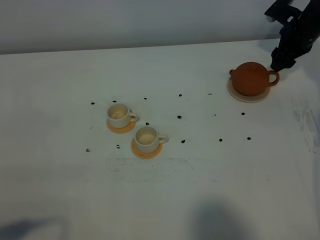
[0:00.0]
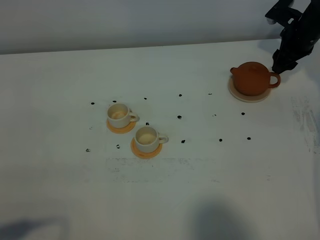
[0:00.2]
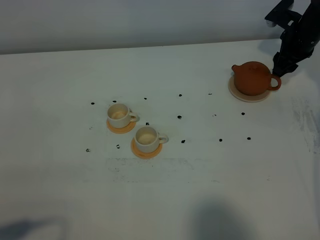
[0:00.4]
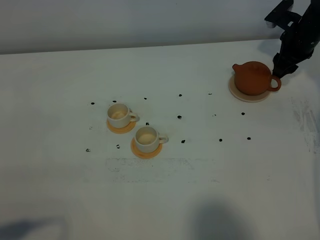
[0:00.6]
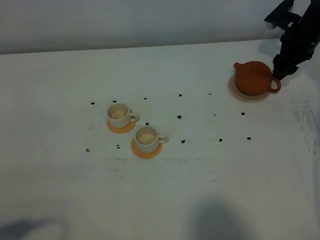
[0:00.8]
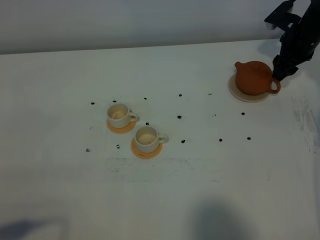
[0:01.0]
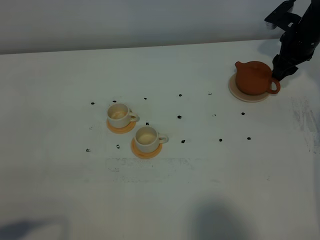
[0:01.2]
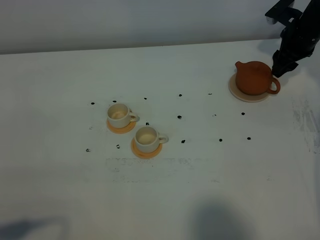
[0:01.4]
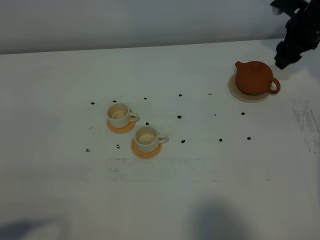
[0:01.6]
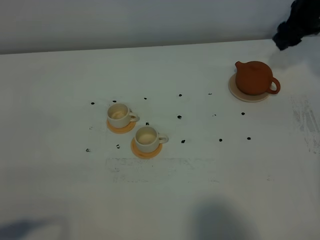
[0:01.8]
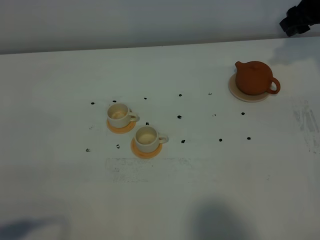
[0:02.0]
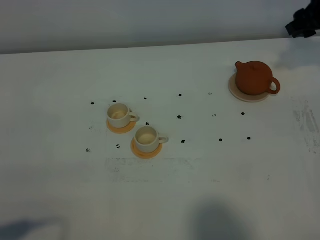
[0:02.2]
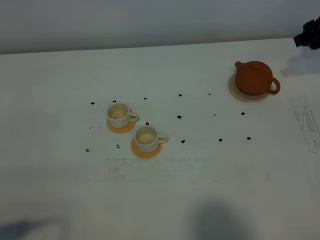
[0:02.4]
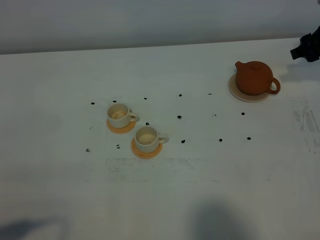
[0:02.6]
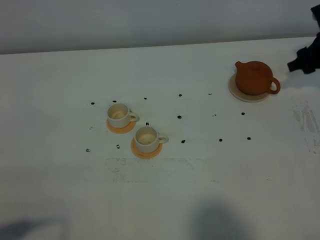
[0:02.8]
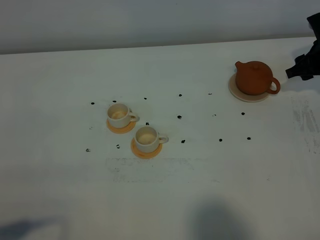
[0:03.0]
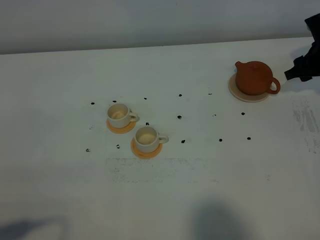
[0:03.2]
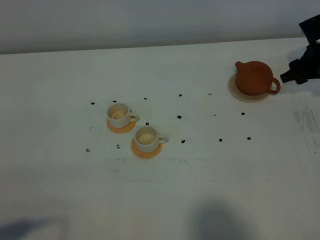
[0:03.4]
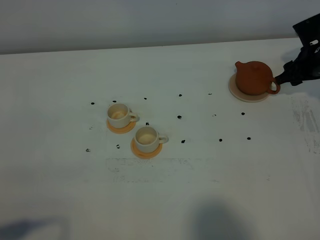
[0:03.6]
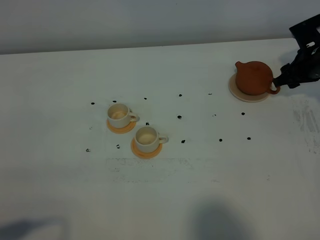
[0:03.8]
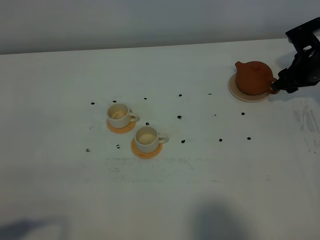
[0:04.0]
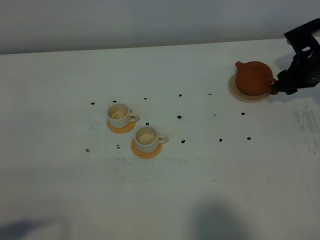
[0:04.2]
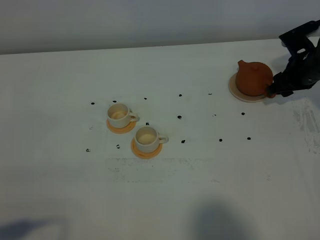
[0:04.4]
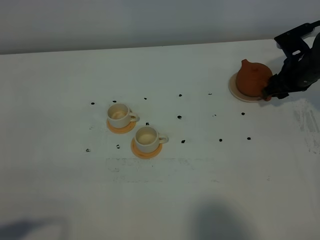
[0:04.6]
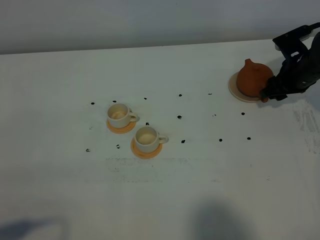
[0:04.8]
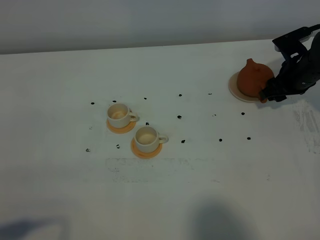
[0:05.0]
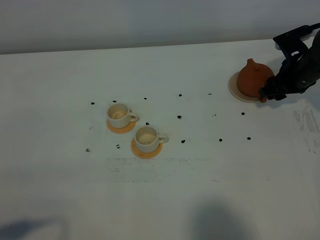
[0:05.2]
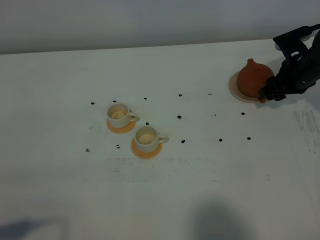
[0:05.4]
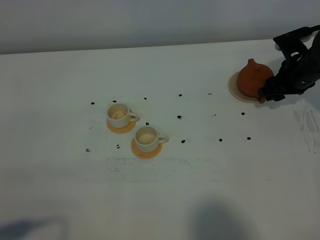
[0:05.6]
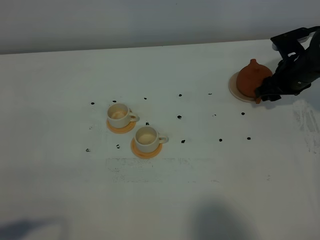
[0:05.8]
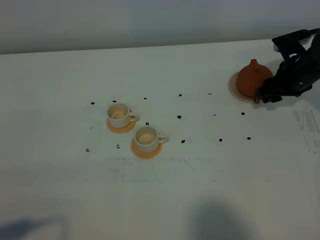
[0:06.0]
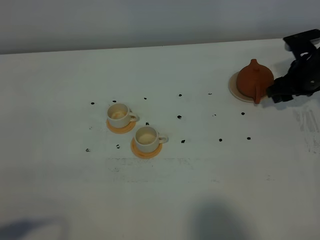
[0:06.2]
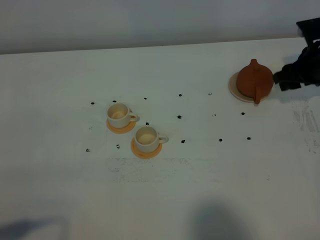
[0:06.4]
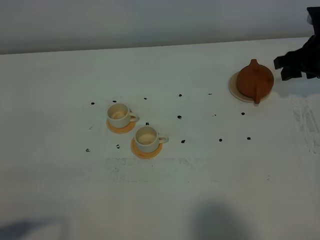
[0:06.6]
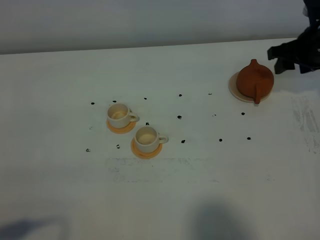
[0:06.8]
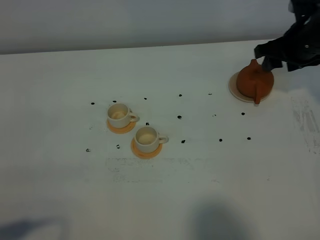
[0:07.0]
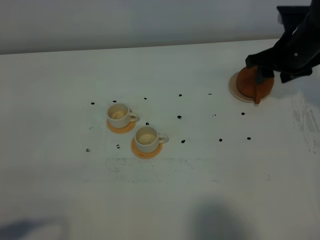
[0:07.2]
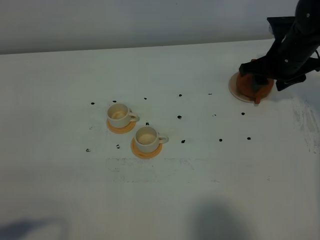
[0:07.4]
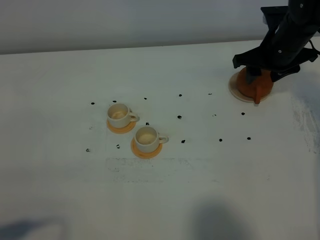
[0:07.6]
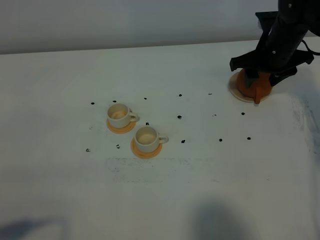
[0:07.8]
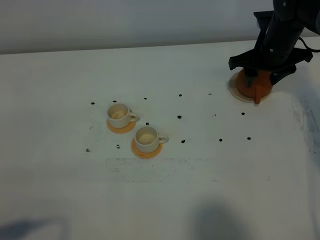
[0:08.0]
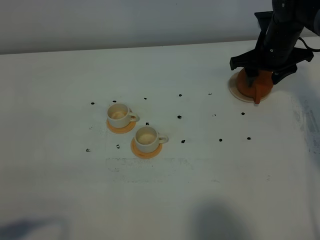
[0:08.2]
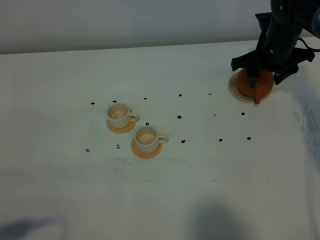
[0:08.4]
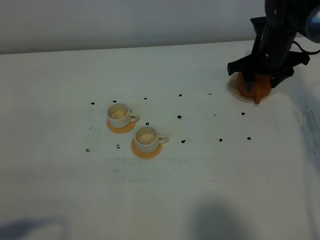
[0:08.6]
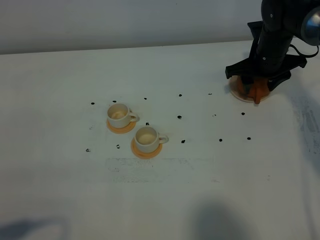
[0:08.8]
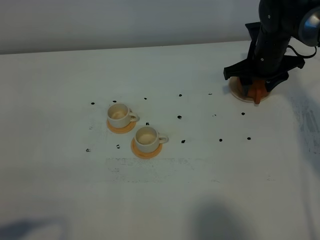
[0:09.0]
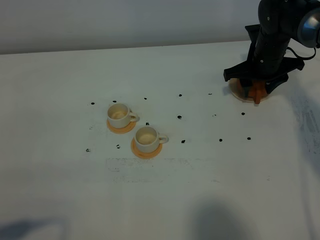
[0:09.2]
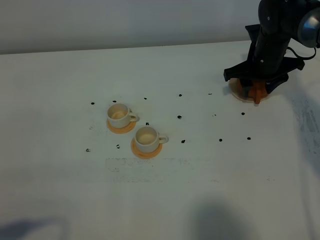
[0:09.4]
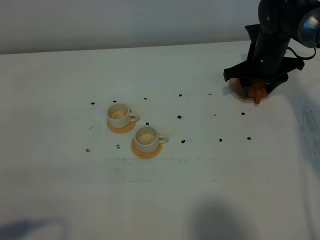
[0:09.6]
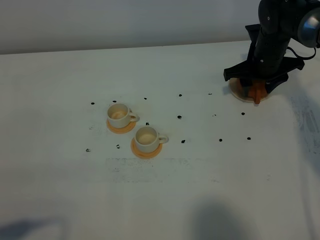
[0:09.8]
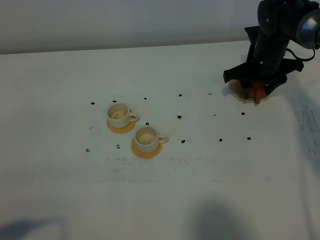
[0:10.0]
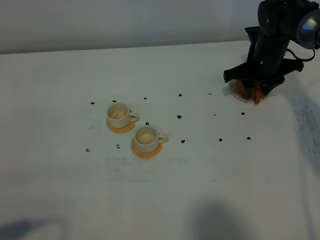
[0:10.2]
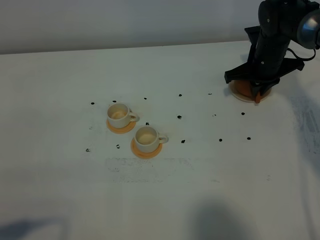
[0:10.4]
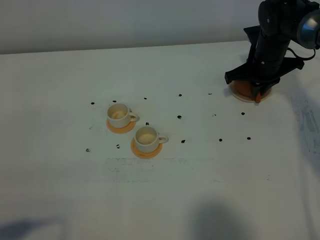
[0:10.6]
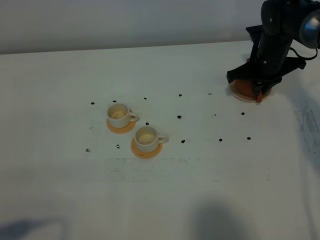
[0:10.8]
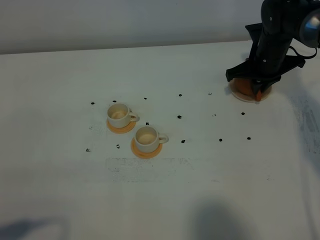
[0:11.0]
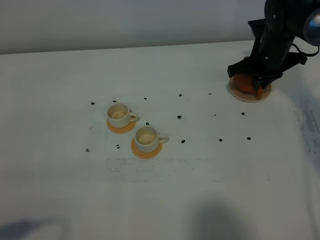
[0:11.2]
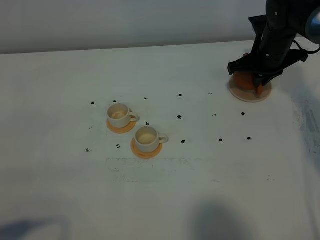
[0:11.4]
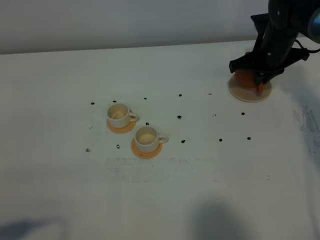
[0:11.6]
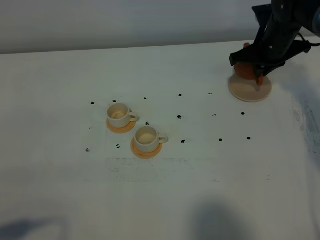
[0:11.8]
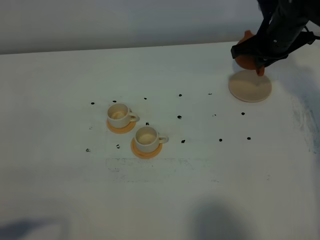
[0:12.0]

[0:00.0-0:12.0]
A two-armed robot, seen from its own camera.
Task of the whole recording: grasp the brown teapot and pour the tea into the two white teacups one by one, put the brown teapot back in its original place.
Step, 0:00.0 to 0:11.8: Pick up the teapot with the right gripper.
0:00.0 to 0:01.6: There are only small adjustments of the grippers.
0:01.6 to 0:03.0: The right gripper travels backward by roughly 5 cm.
0:03.0 to 0:04.4: The right gripper changes place by approximately 5 cm.
0:04.4 to 0:06.0: The grippers stay close to where they were, moving slightly.
0:06.0 to 0:07.6: The right gripper is displaced upward and to the left by roughly 10 cm.
0:07.6 to 0:09.0: The grippers stay close to where they were, moving slightly.
0:09.0 to 0:10.4: The right gripper closes its fingers.
0:10.4 to 0:12.0: The right gripper heads upward, covering approximately 5 cm.

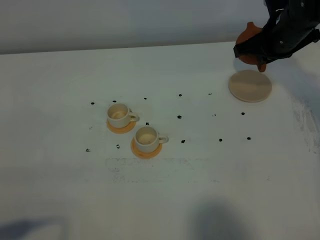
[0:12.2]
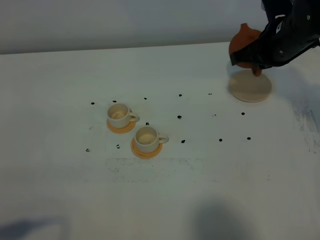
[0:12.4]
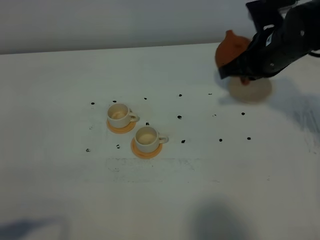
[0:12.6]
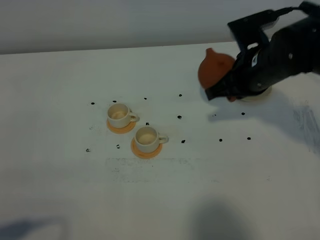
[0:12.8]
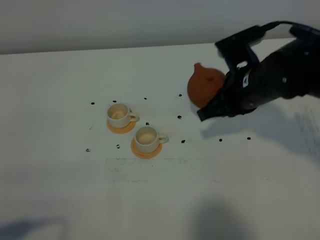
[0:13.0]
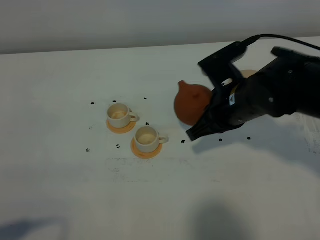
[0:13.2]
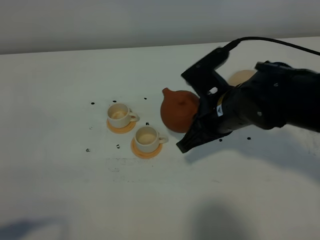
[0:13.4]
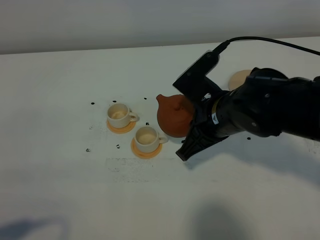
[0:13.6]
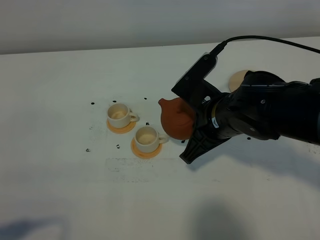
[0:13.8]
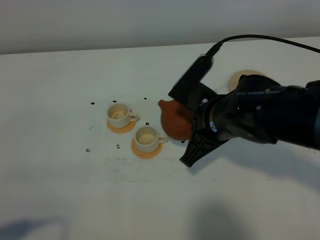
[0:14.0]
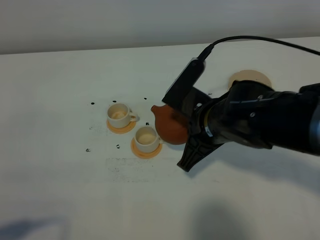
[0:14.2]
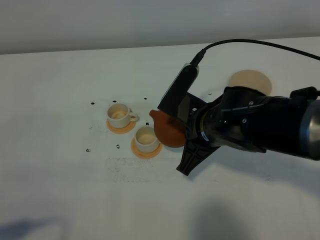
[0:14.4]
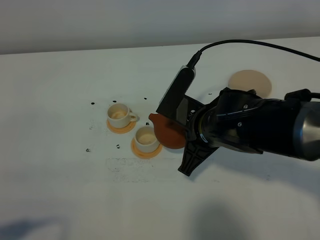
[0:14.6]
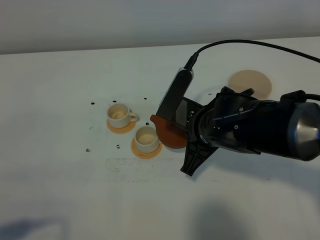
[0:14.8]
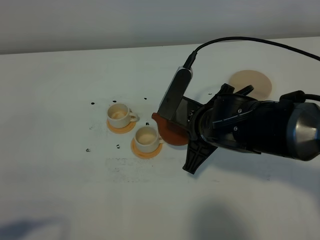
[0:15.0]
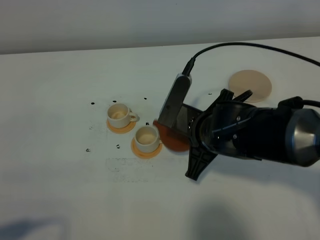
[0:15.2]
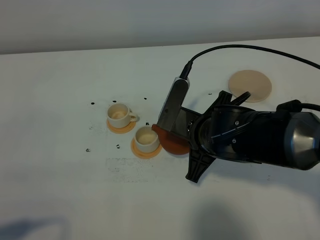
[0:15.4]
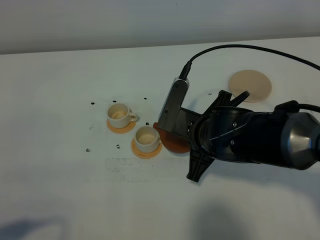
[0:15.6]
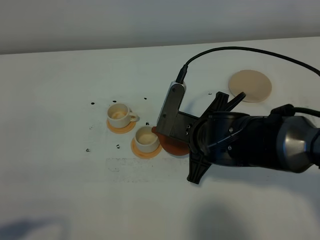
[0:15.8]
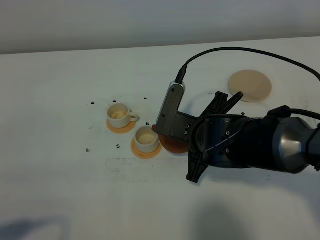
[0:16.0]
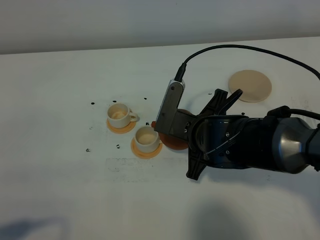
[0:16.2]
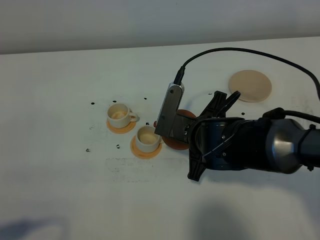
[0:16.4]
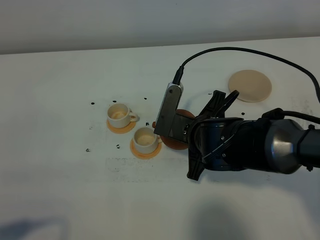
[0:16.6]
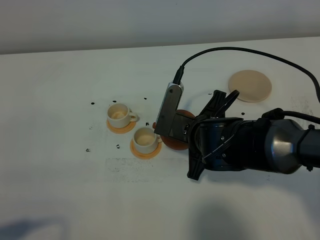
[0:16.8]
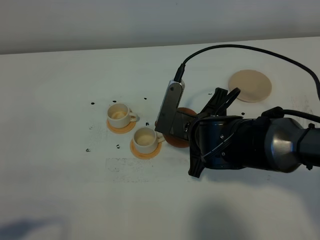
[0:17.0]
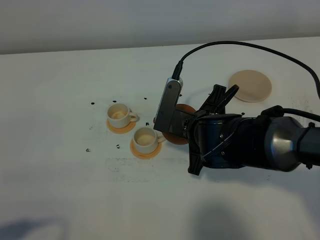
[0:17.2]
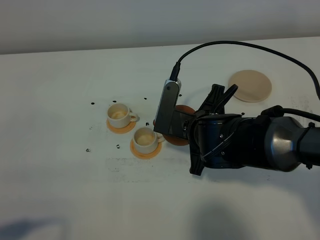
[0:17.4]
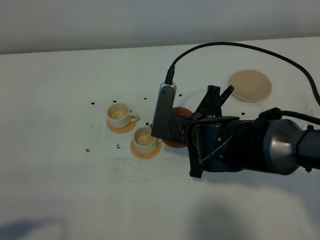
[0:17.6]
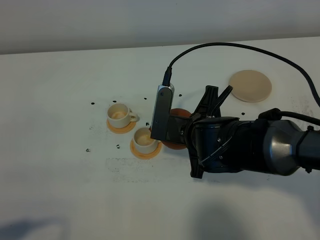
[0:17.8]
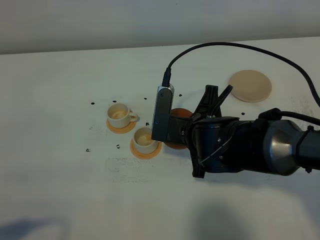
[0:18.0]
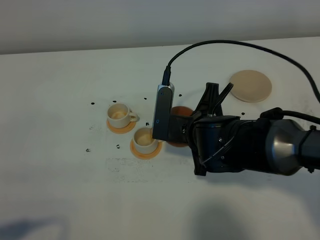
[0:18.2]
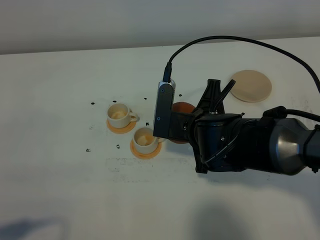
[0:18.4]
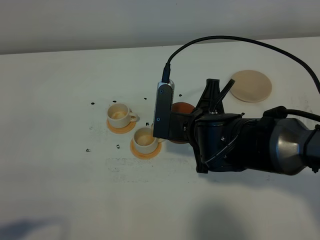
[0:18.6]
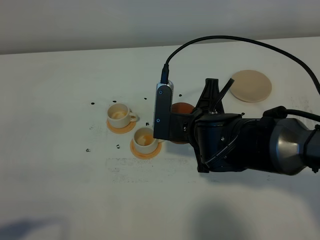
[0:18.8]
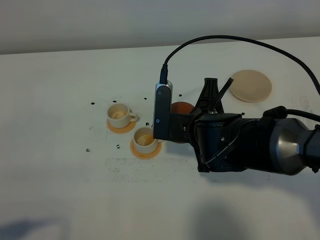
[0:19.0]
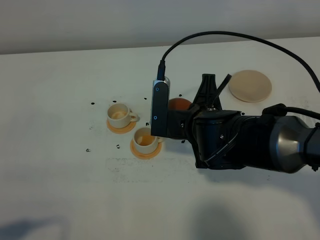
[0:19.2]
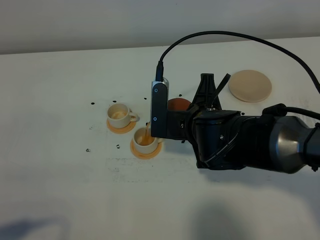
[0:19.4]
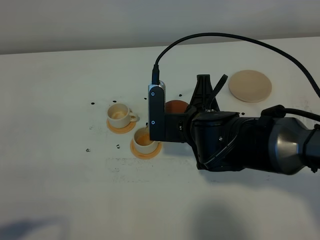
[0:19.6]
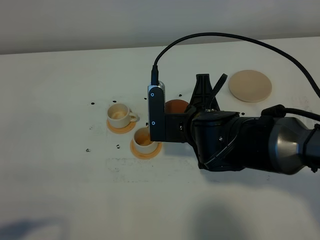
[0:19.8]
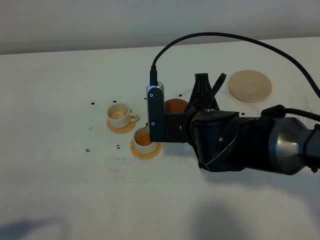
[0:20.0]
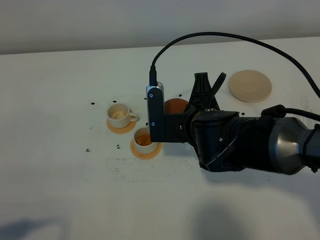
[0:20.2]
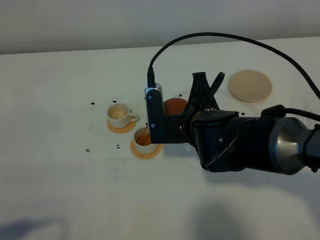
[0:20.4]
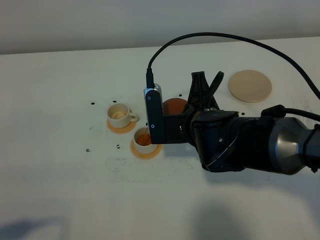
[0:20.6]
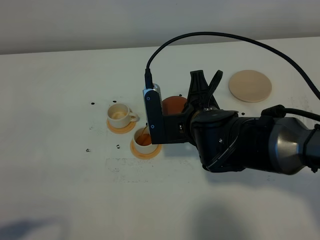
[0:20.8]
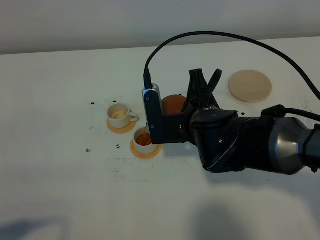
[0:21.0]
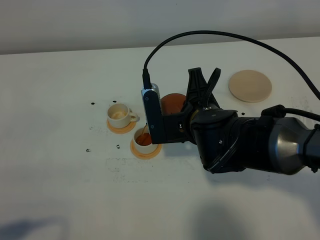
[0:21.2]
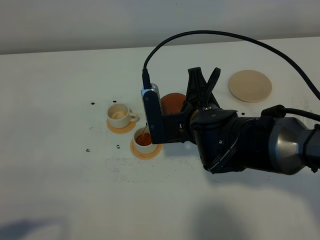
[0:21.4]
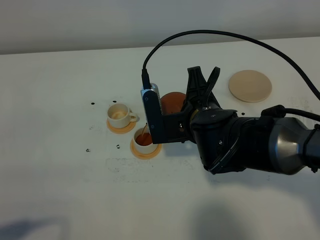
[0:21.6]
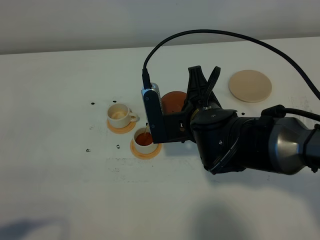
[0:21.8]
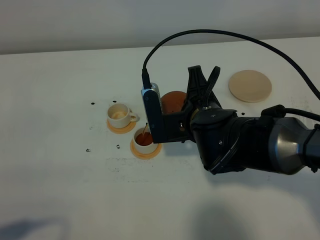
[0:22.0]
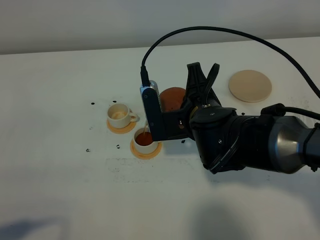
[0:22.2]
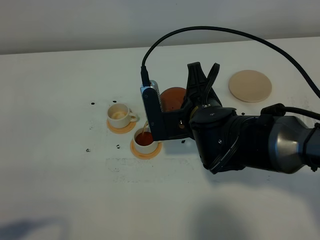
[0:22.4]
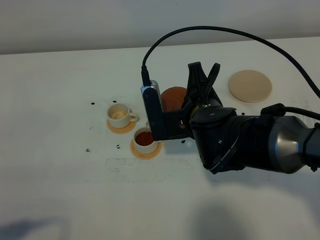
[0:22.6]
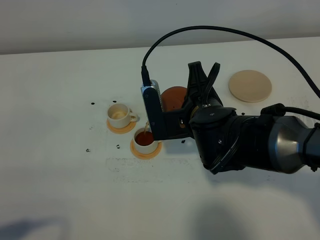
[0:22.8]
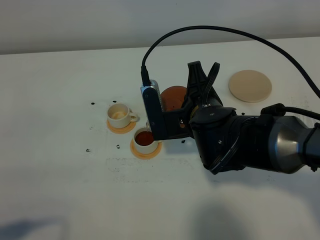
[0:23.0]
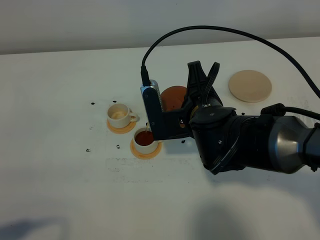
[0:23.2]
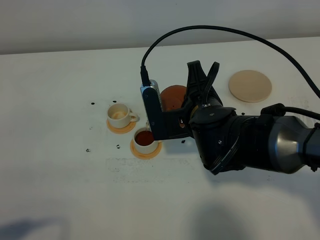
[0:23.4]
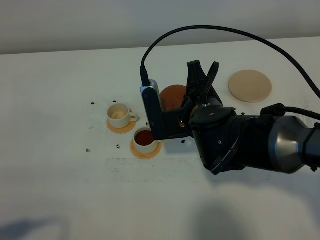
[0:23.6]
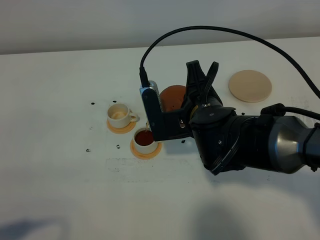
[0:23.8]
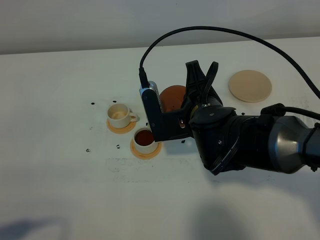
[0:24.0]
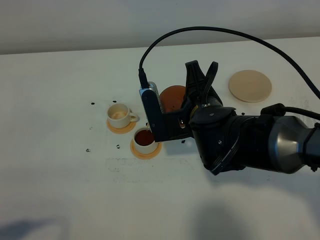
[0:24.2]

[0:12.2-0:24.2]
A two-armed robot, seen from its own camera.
Task of the whole recording: grasp the brown teapot and pour the tea into the two white teacups one by one, put the brown teapot back in its original place.
0:12.2 to 0:13.8: The right gripper moves backward and to the left, roughly 20 cm.
0:13.8 to 0:15.2: The grippers stay close to where they were, moving slightly.
0:15.2 to 0:18.2: There are only small adjustments of the grippers.
0:18.2 to 0:21.2: The grippers move only a little.
0:21.2 to 0:22.6: Neither gripper changes place.
0:22.6 to 0:24.2: Both grippers stay put.
